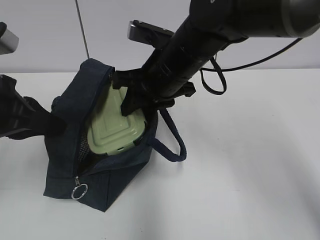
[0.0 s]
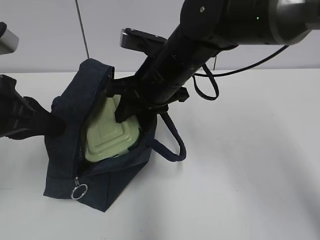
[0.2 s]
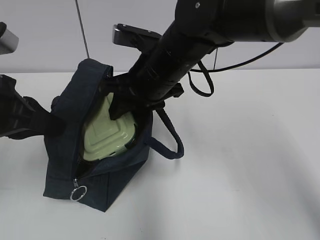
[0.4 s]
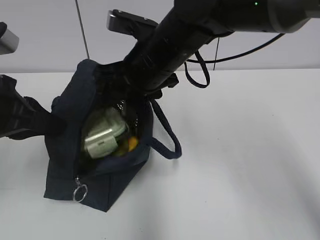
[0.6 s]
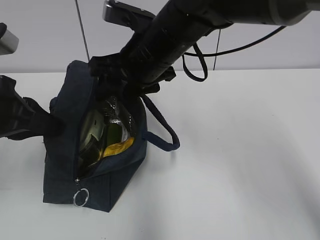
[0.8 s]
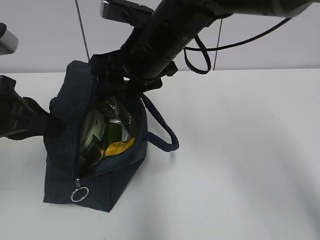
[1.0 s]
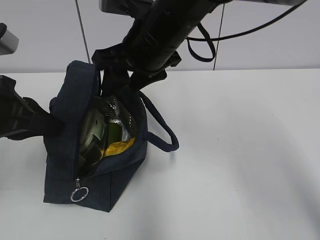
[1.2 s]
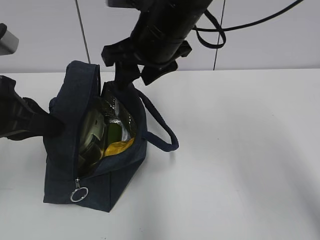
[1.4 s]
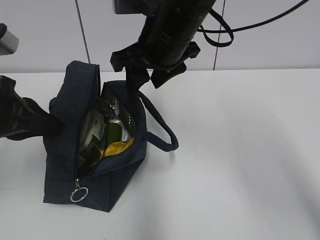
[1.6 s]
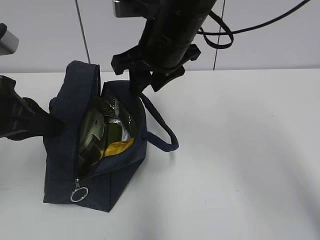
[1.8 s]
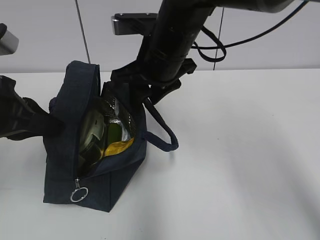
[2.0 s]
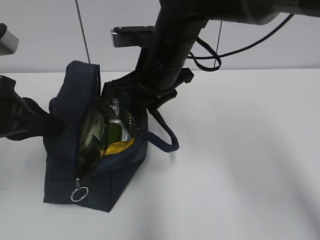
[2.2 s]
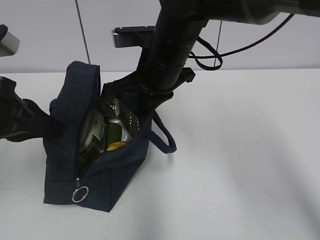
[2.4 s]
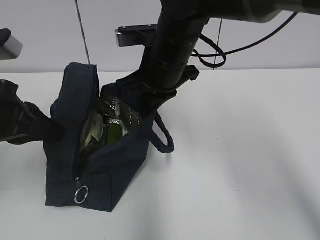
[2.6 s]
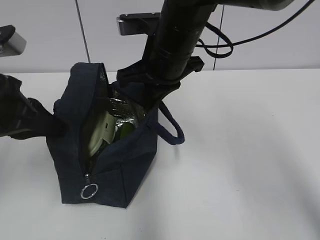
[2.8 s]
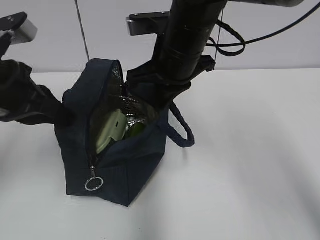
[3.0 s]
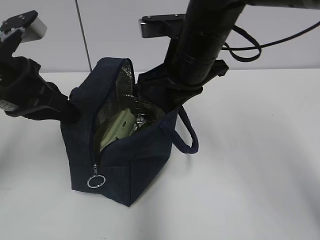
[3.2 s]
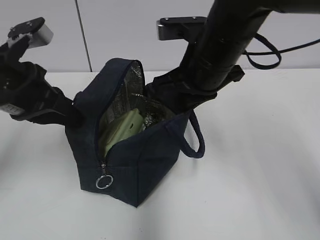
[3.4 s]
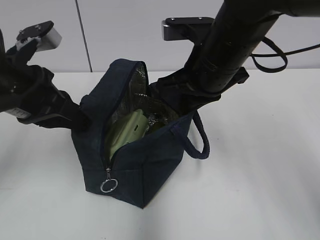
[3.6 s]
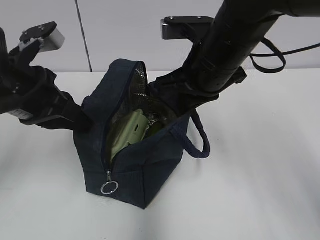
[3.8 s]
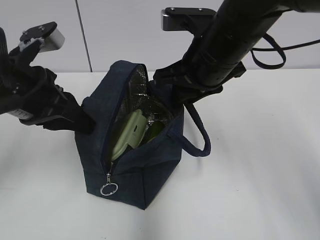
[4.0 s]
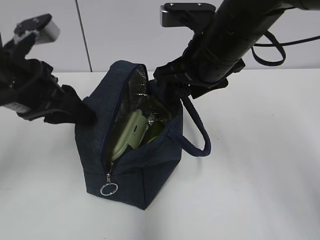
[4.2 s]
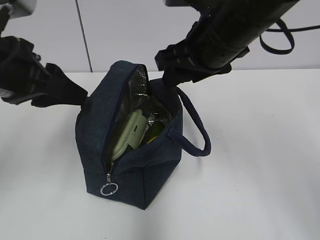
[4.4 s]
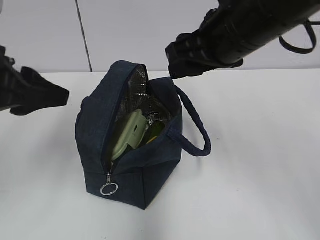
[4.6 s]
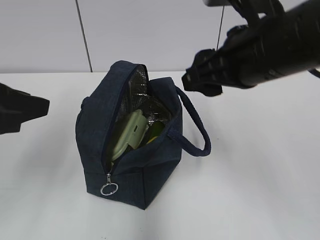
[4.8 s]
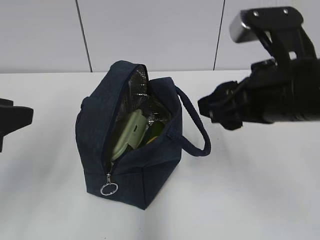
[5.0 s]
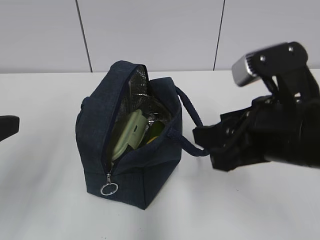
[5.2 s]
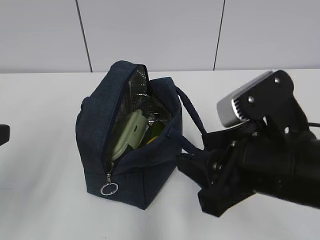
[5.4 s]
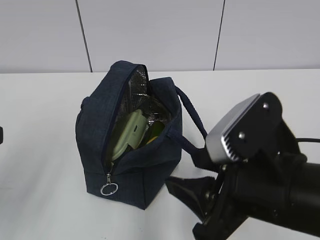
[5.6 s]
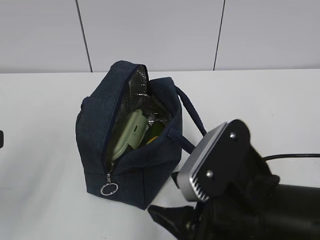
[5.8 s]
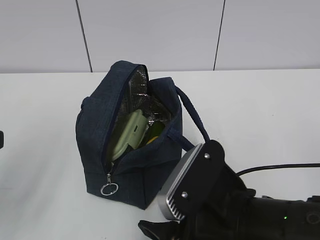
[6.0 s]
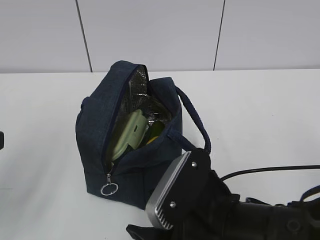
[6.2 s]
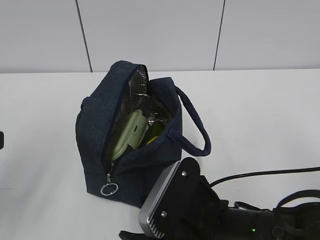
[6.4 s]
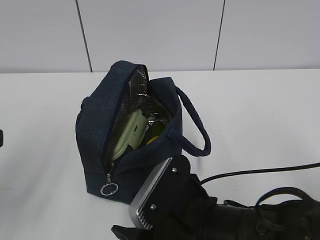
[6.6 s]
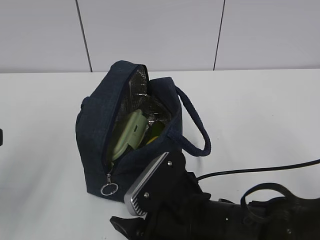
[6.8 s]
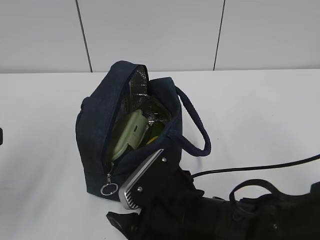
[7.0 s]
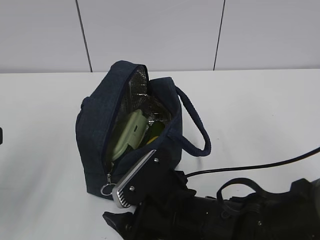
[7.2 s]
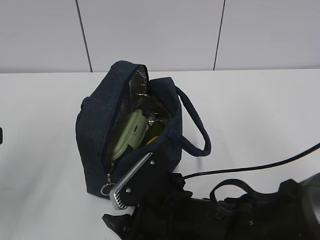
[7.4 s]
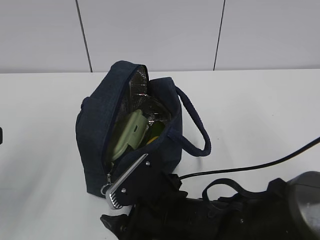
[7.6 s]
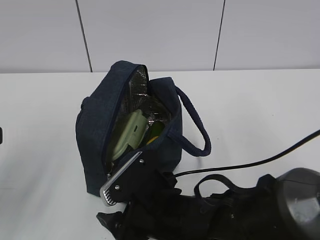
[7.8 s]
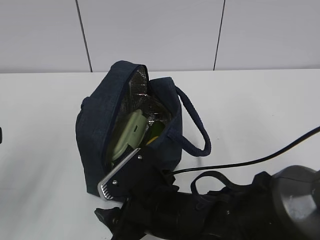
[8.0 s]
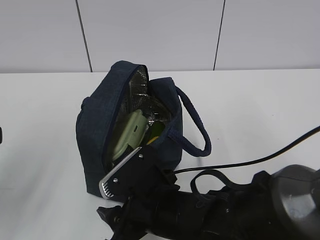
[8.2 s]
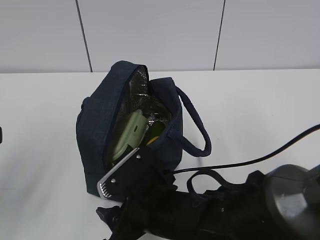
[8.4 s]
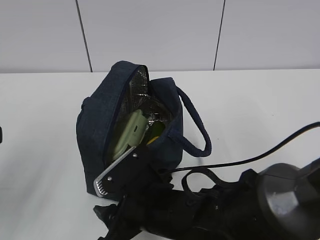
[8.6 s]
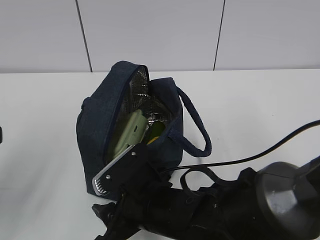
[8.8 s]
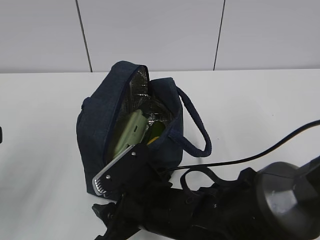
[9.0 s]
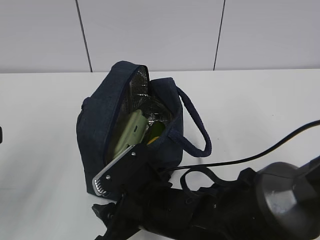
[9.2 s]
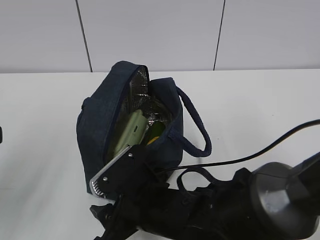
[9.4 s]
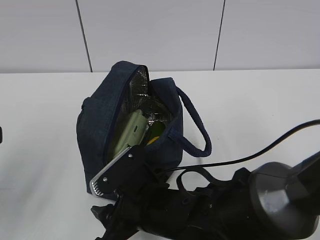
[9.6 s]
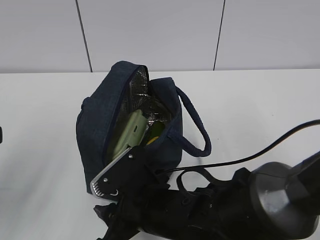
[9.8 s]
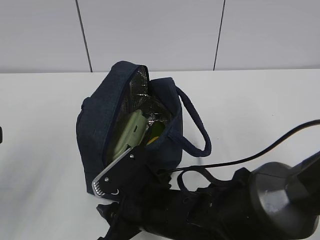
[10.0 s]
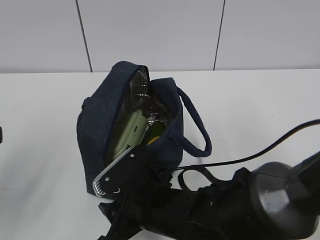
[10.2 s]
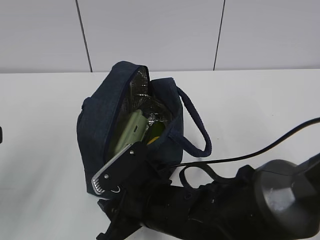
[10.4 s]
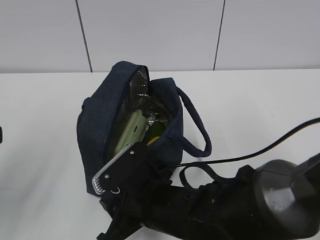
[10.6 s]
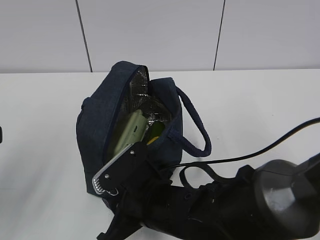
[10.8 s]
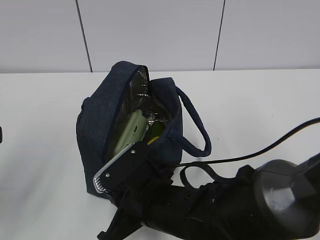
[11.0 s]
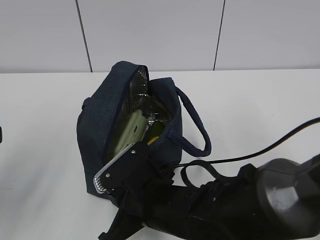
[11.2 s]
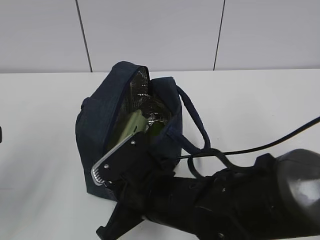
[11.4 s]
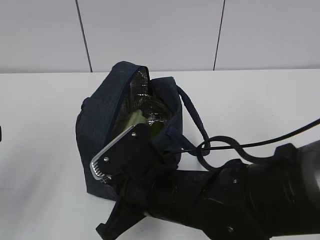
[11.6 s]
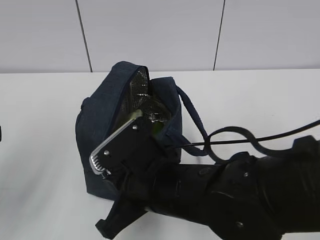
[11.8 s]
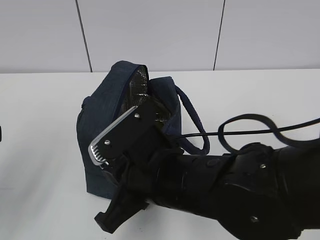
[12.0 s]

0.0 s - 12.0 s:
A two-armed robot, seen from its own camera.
Step, 2.8 s - 3.6 s: Move the lunch bag to the right.
0.0 s - 1.6 s: The right gripper heads upward, covering approximately 5 cm.
1.6 s - 3.0 s: The right gripper closes.
3.0 s - 4.4 s: The left gripper opens; the right gripper ends up about 5 cm from where it was, and opens its fingers.
4.4 s - 6.0 s: The right gripper heads backward and downward, covering roughly 20 cm, while the left gripper heads backward and to the left, covering approximately 15 cm.
6.0 s - 7.6 s: The right gripper travels downward and to the left by some 10 cm.
7.6 s - 9.0 s: The grippers move only a little.
9.0 s - 10.4 s: Both grippers stay put.
10.4 s - 12.0 s: The right gripper goes roughly 10 cm upward, and closes its fingers.

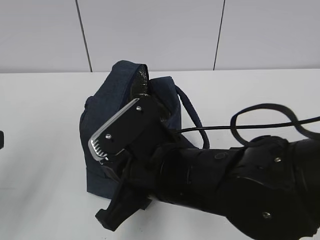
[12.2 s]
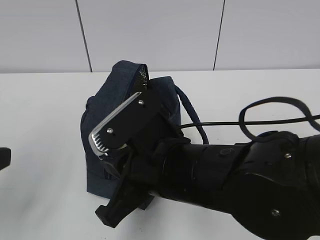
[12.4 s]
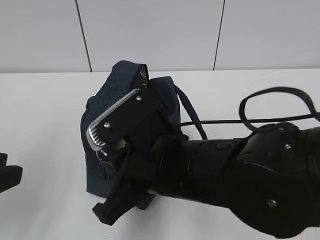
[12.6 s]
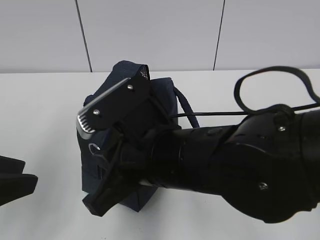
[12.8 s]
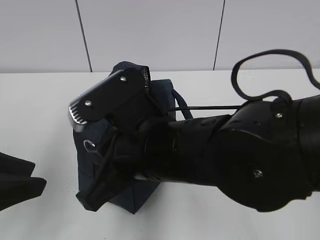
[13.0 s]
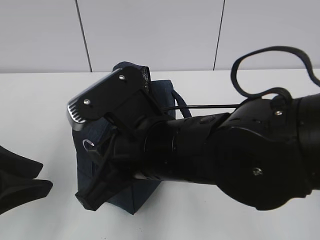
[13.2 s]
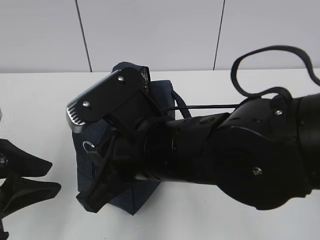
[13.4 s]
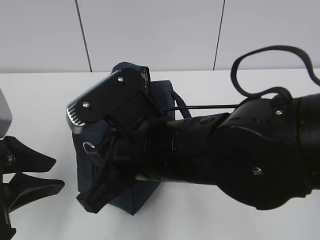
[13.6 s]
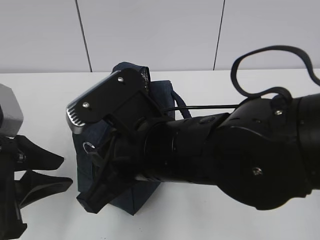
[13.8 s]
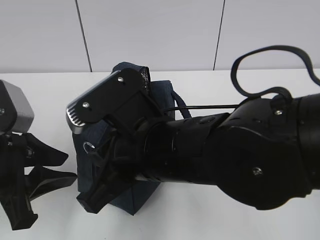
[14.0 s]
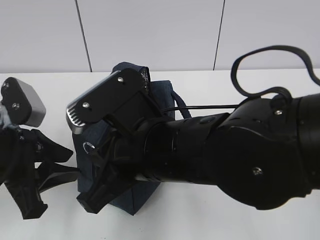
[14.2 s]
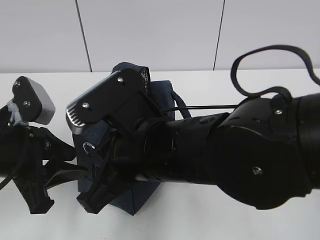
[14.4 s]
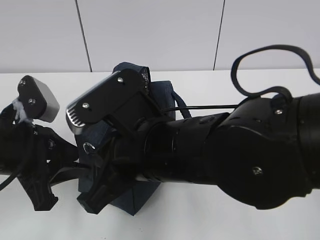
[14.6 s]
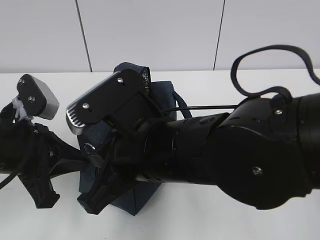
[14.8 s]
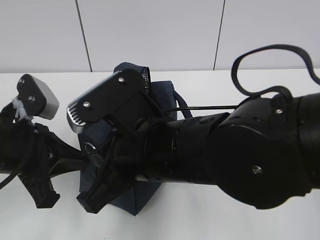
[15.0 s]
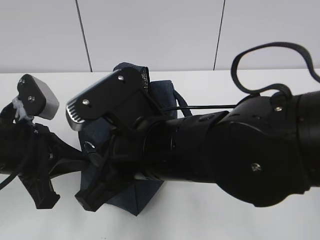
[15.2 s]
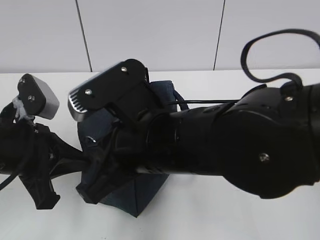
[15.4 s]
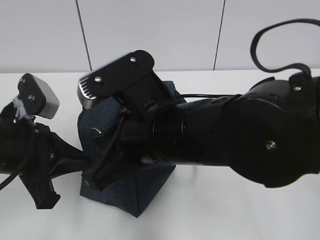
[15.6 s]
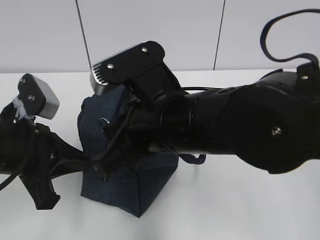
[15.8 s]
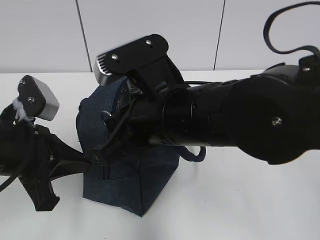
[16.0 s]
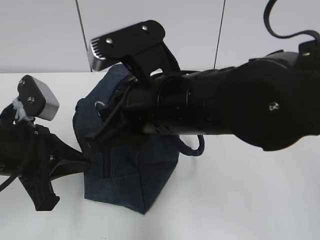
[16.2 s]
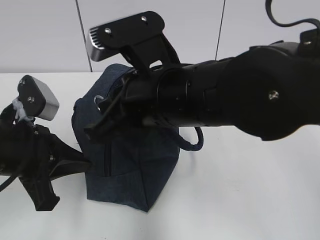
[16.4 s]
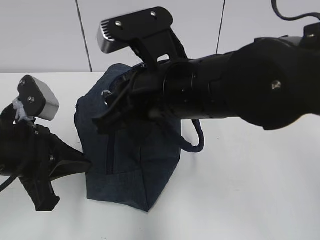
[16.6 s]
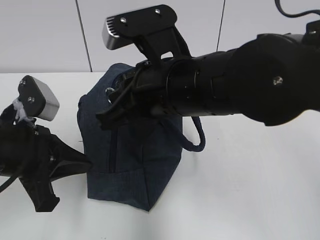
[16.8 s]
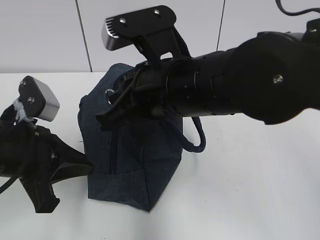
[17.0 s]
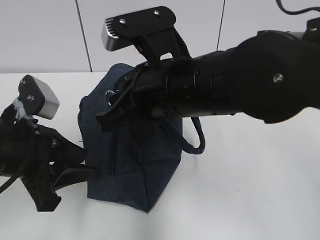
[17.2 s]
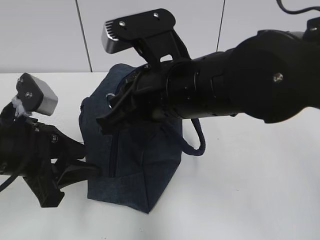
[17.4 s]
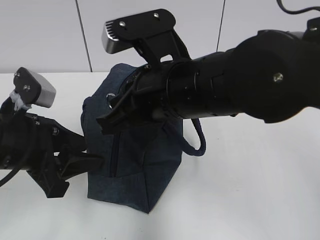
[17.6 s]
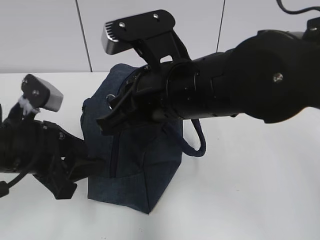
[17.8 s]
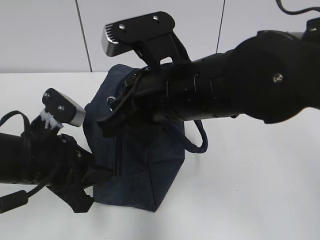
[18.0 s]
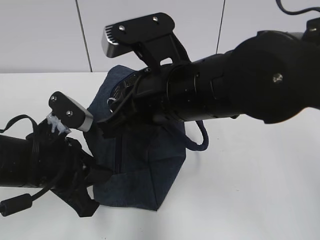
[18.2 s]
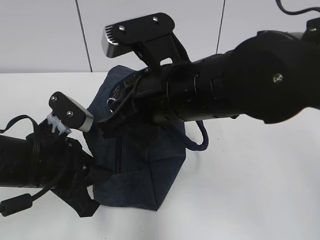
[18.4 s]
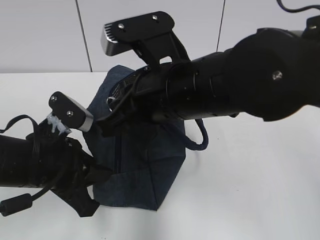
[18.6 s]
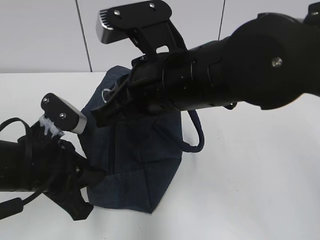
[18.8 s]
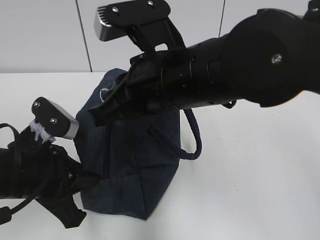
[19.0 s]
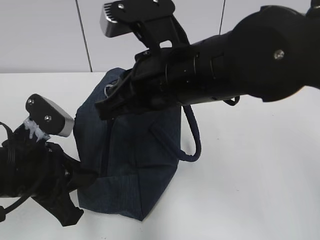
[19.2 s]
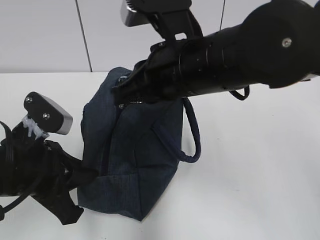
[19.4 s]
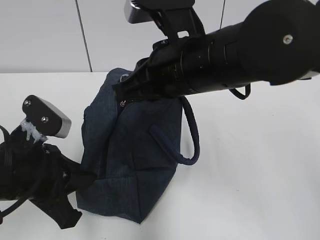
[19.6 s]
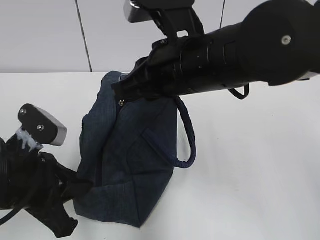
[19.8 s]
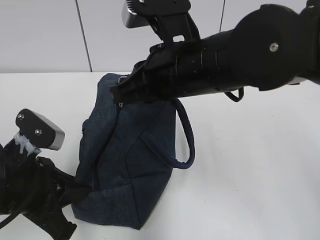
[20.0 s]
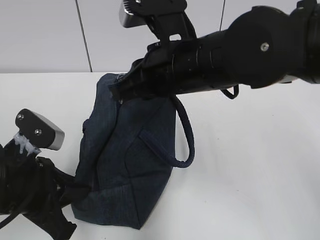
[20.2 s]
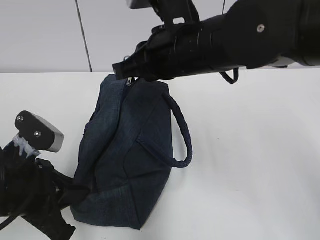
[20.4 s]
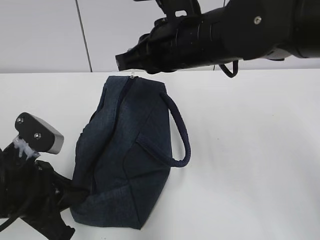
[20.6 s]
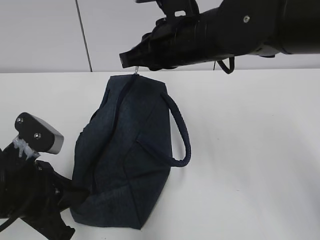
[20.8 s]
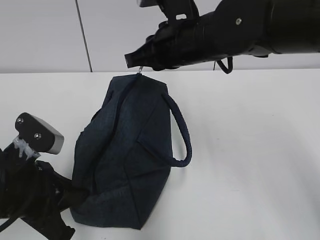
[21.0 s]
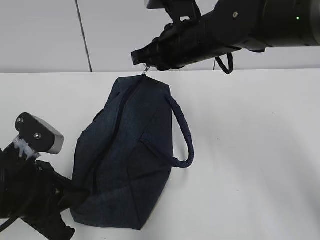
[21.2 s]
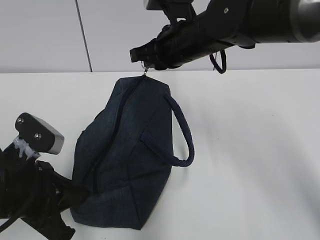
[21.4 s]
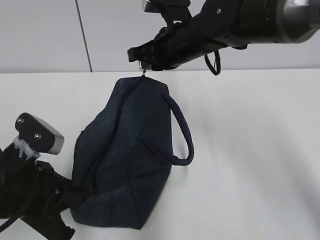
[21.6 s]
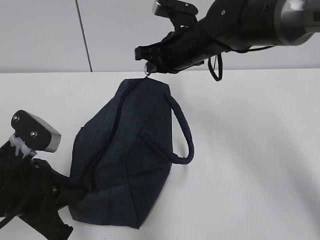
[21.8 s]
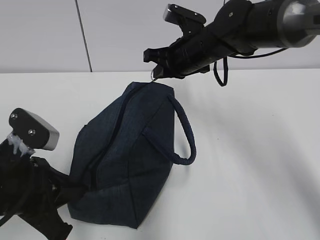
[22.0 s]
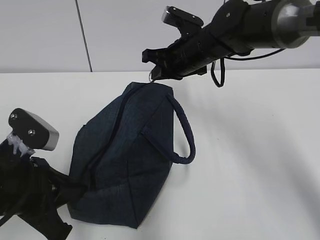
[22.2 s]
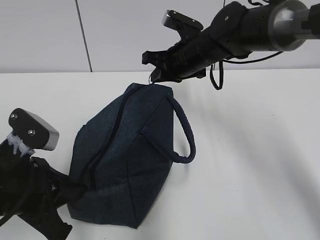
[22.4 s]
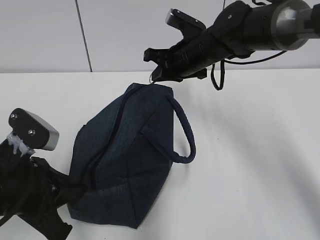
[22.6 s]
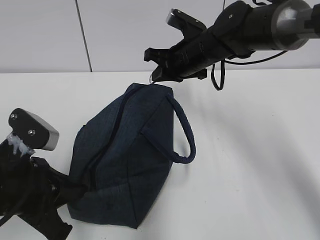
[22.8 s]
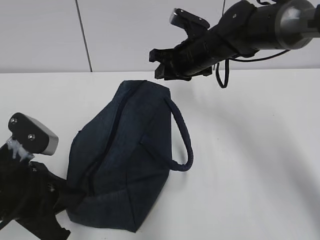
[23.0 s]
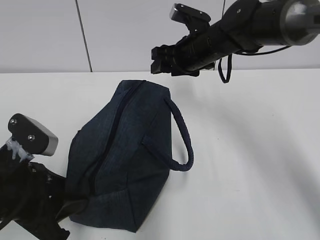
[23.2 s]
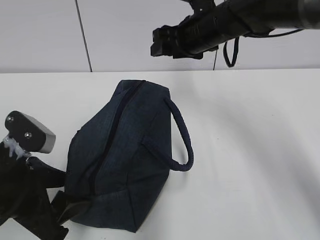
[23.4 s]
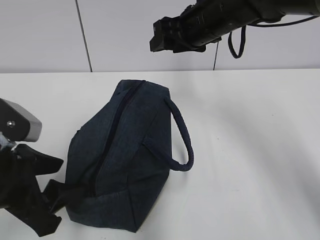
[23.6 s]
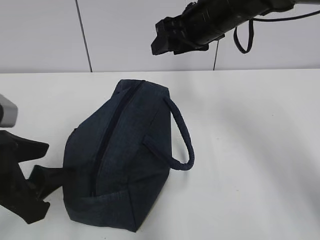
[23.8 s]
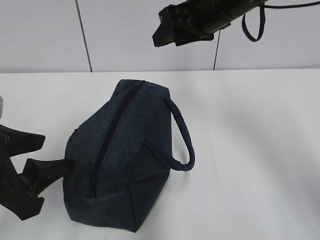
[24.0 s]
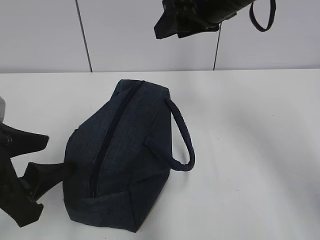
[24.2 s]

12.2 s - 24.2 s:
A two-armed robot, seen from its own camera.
Step, 12.2 s - 15.2 s: Grab the lunch bag with your left hand.
Step, 15.4 s - 22.8 s: Pull the zipper with your right hand.
12.2 s - 13.8 s: The left gripper travels forward and downward by approximately 10 cm.
13.8 s - 15.2 s: The left gripper closes its fingers.
15.2 s - 16.6 s: The right gripper changes place by some 5 cm.
16.6 s - 18.2 s: The left gripper opens, then closes once more.
19.8 s - 21.2 s: The right gripper heads forward, covering approximately 10 cm.
21.2 s - 22.6 s: The right gripper moves forward and downward, roughly 10 cm.
22.6 s - 24.2 s: The left gripper heads upward, covering about 5 cm, and opens up, while the right gripper moves upward and backward, approximately 15 cm, and opens up.
